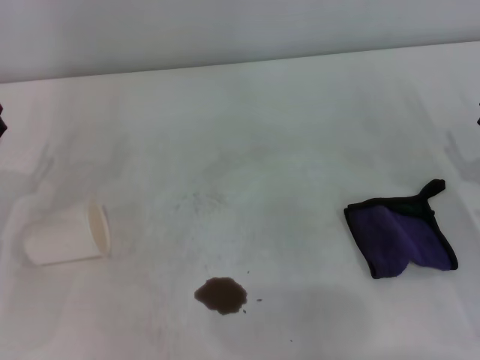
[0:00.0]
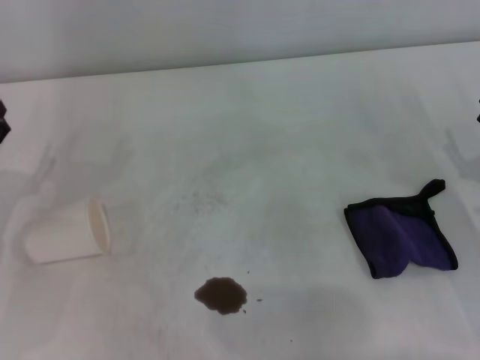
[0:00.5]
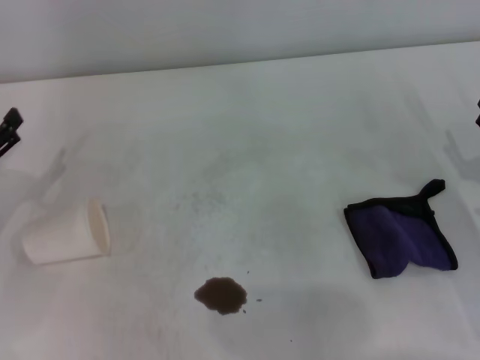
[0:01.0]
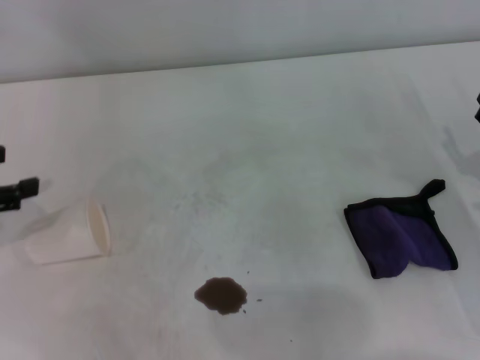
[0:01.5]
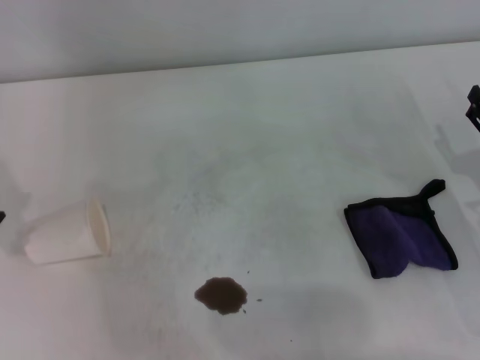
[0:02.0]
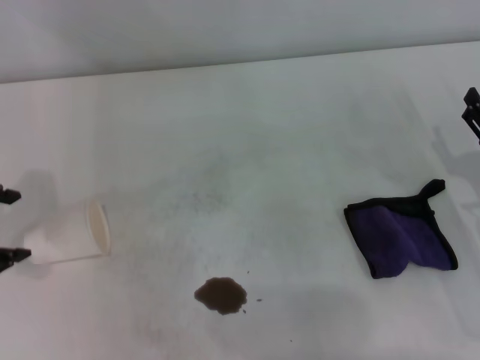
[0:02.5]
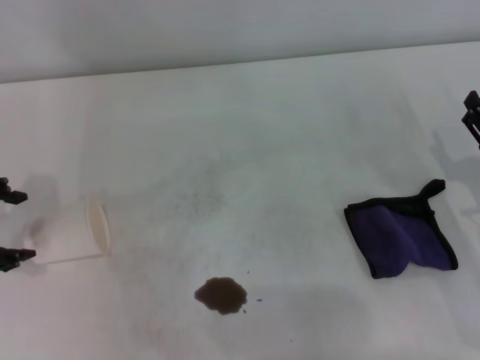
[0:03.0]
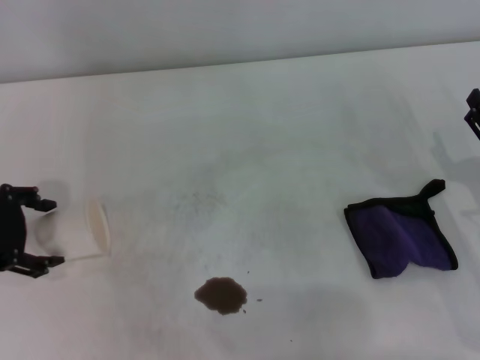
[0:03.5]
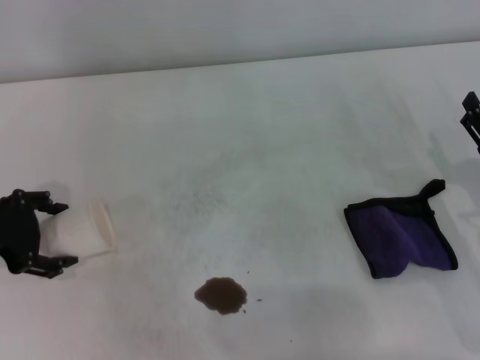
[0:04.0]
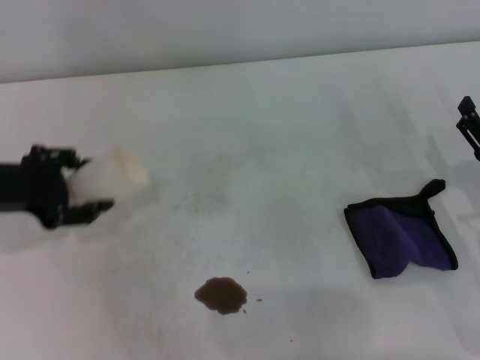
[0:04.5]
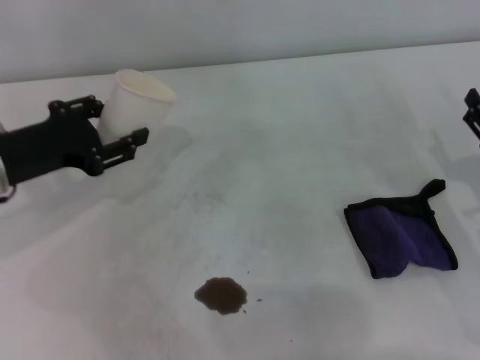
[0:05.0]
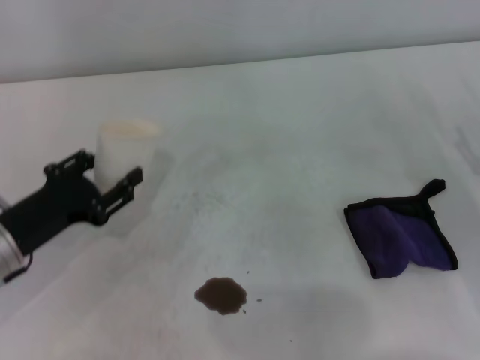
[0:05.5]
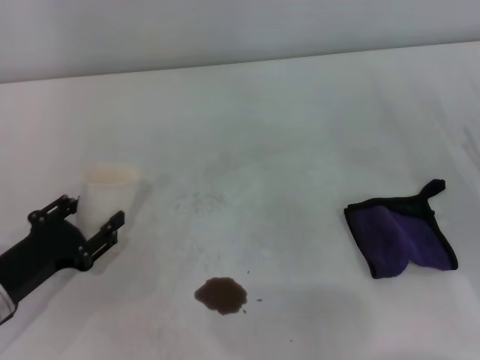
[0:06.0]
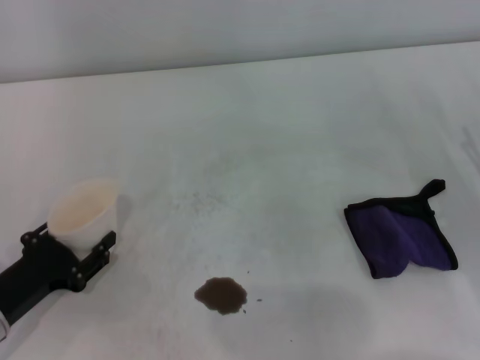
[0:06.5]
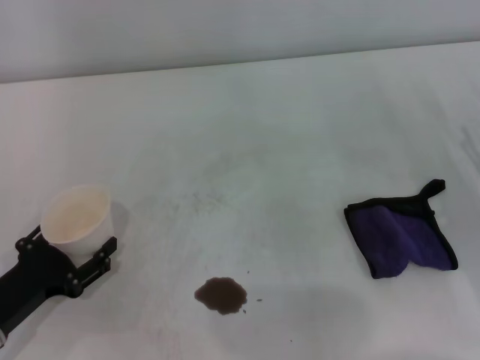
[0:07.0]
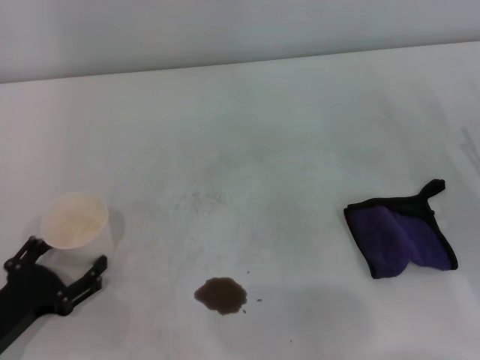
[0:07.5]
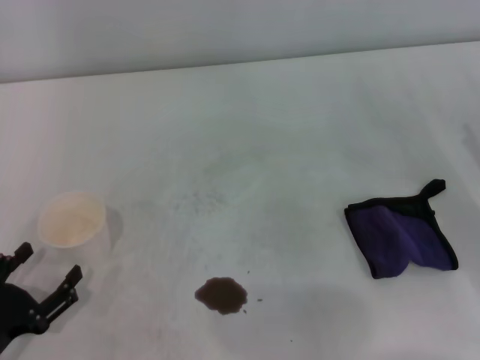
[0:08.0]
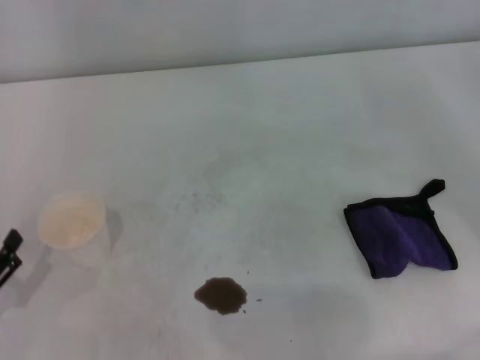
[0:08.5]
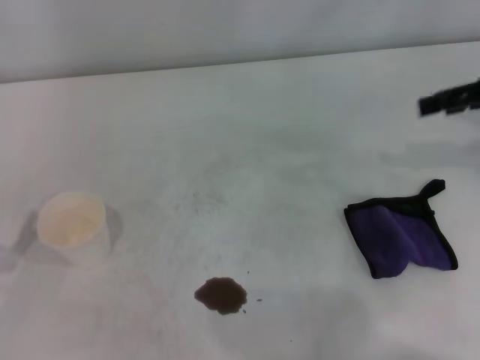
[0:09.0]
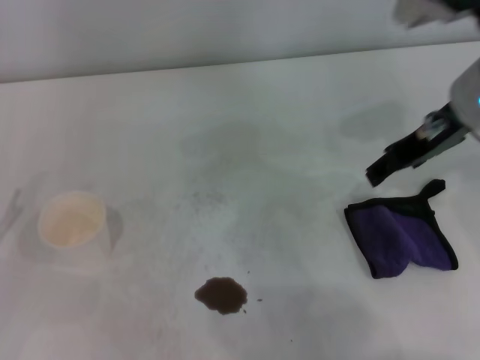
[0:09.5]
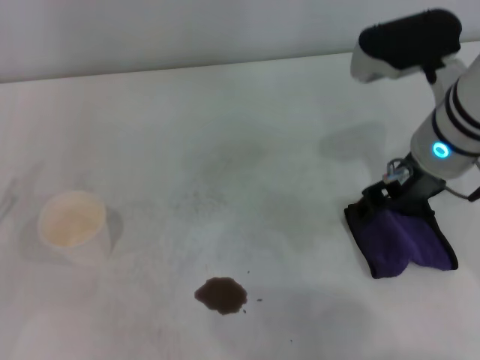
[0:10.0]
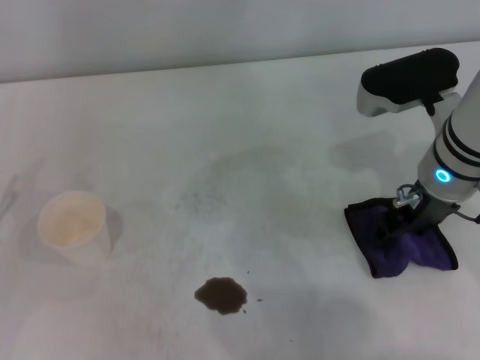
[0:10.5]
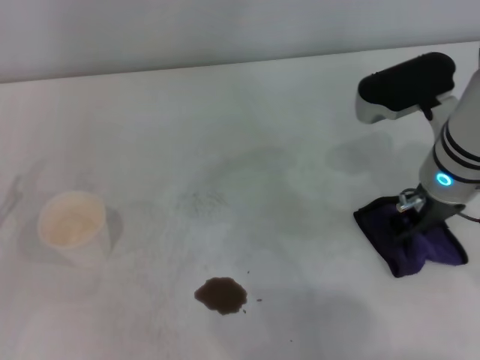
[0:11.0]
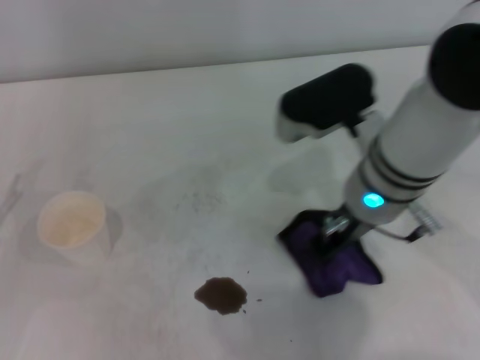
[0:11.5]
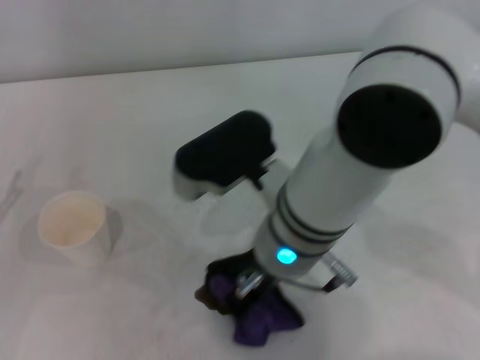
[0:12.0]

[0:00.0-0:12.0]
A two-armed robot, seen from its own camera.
Step, 0.0 to 3.5 s: Grasp the paper cup with the left gripper.
Step, 4.0 to 7.0 s: Stand the paper cup upright with the left gripper.
Step, 7.5 to 10.0 s: Grasp the rag with the right gripper.
2.0 to 4.0 s: The left gripper goes some 10 cm downward and to the right.
4.0 to 6.0 s: The left gripper travels downward and backward by approximately 15 cm, and closes its fingers.
6.0 to 8.0 s: The left gripper moves backward, roughly 10 cm, and opens its fingers.
8.0 to 10.0 s: The right gripper is displaced to the left, upward and forward by roughly 25 cm, while the left gripper travels forward, to the left and upward by roughly 10 cm.
10.0 to 12.0 s: The right gripper shifts roughly 15 cm to the left, and closes up.

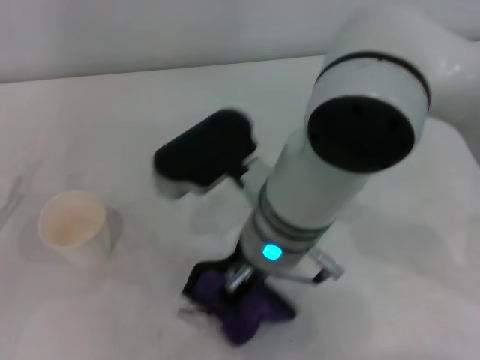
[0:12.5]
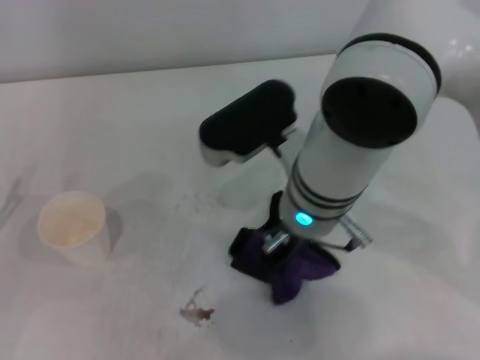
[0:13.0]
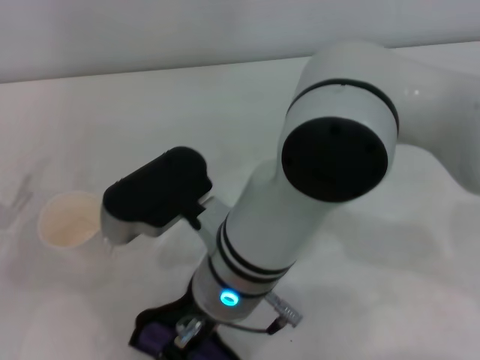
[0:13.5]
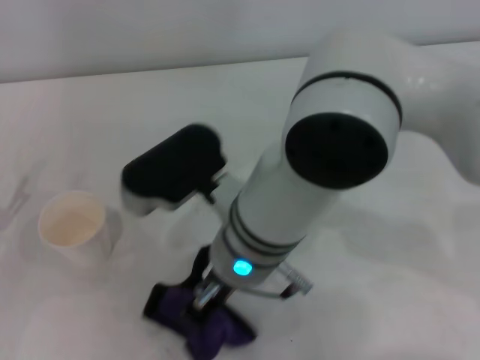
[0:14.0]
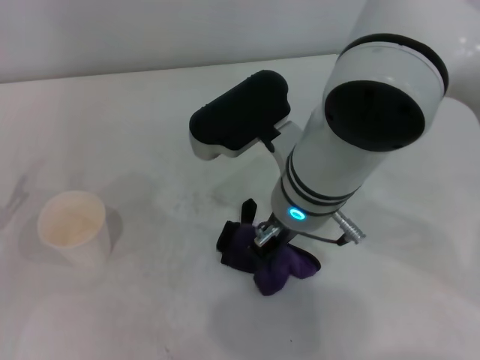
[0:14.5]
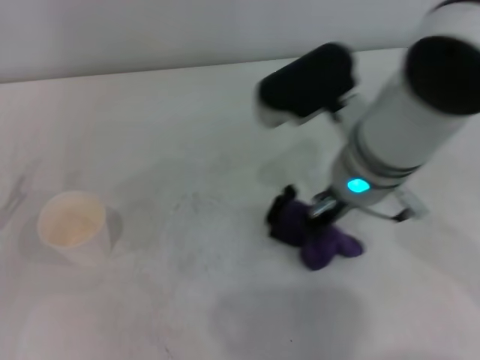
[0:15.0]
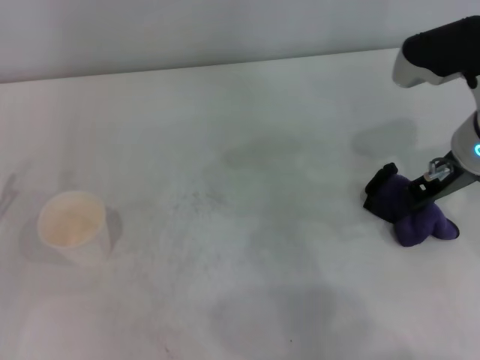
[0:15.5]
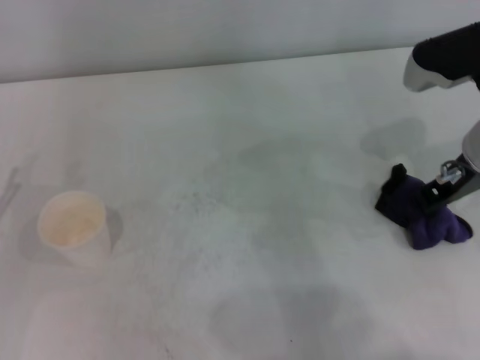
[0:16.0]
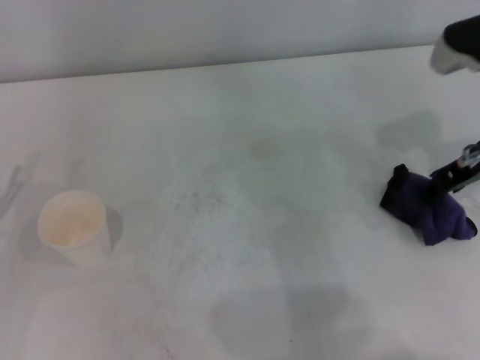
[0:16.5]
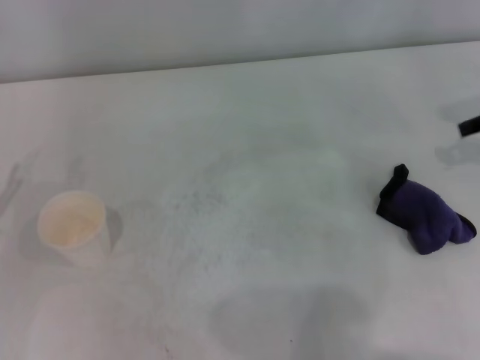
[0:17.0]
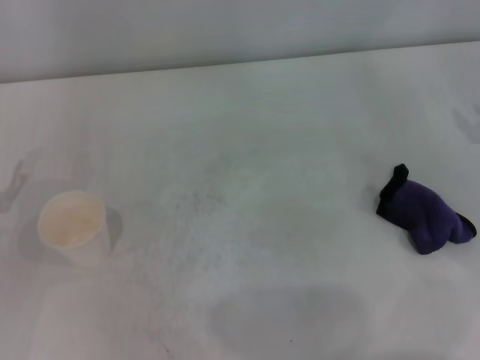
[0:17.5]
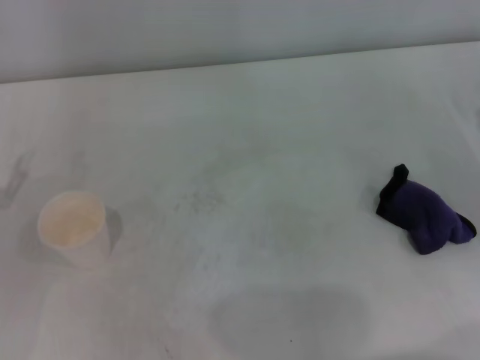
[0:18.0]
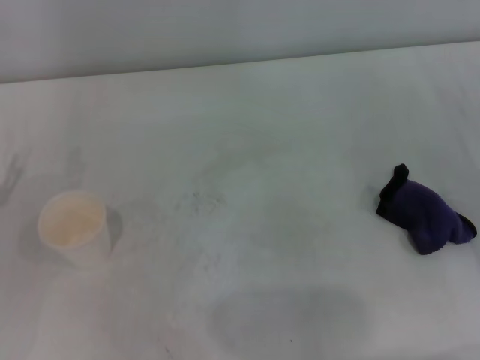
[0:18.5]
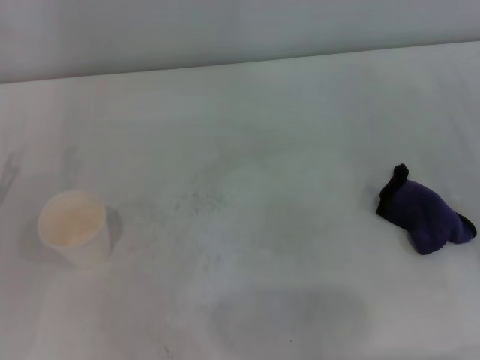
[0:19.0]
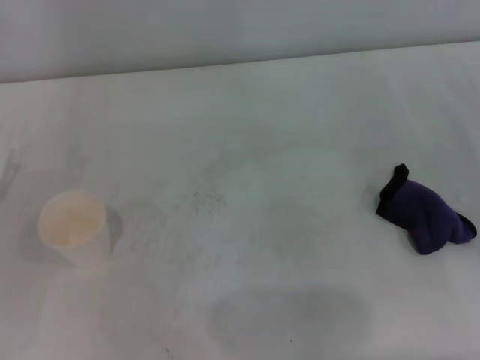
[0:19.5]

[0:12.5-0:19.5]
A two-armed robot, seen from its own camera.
Step, 12.5 to 15.5 s: Wipe the stains off the table with the right gripper.
14.5 to 16.0 s: The right gripper is displaced to the right by roughly 20 cm.
16.0 to 17.5 s: The right gripper goes some 15 cm to the right, and opens up.

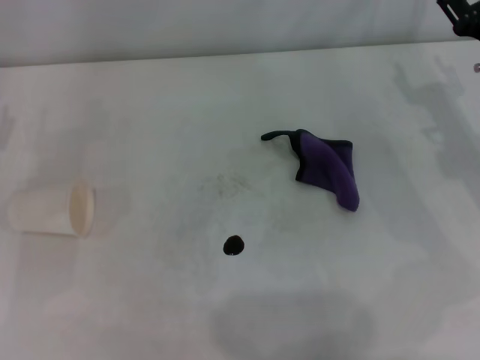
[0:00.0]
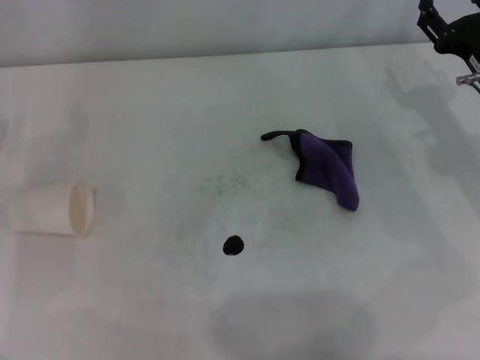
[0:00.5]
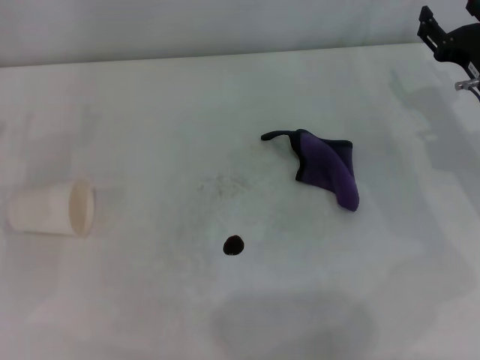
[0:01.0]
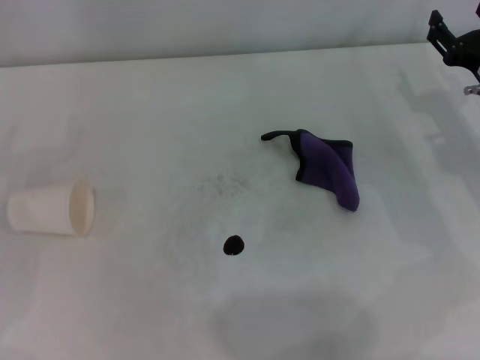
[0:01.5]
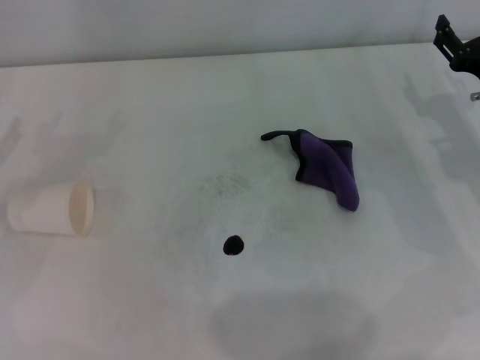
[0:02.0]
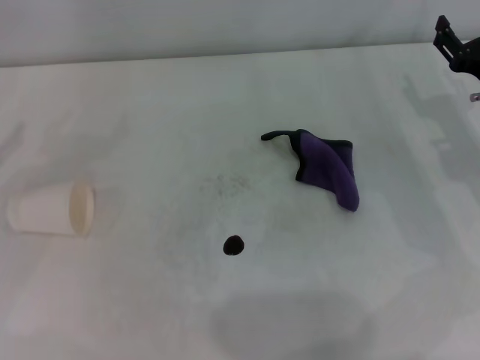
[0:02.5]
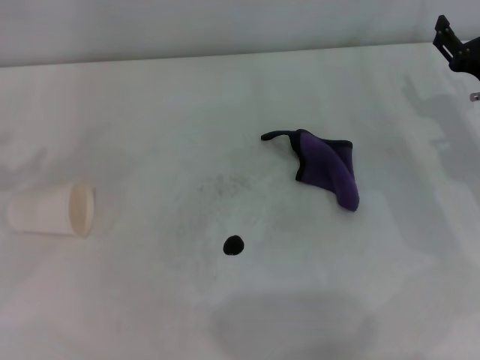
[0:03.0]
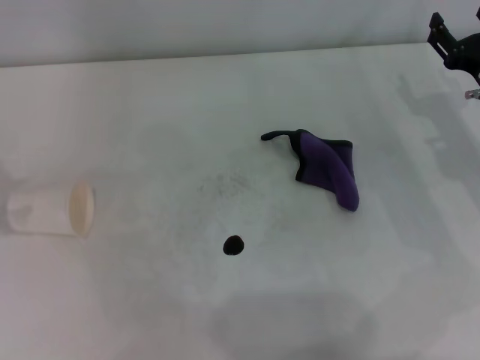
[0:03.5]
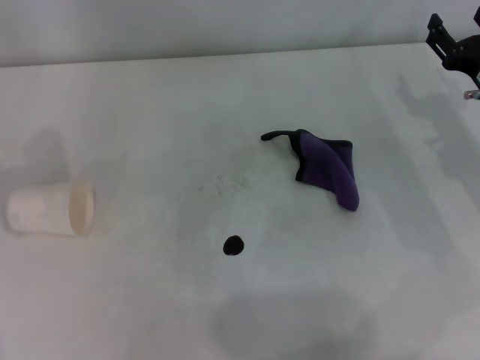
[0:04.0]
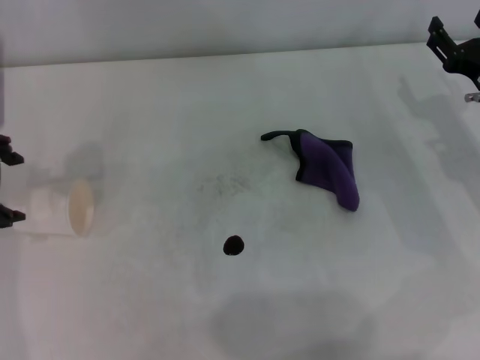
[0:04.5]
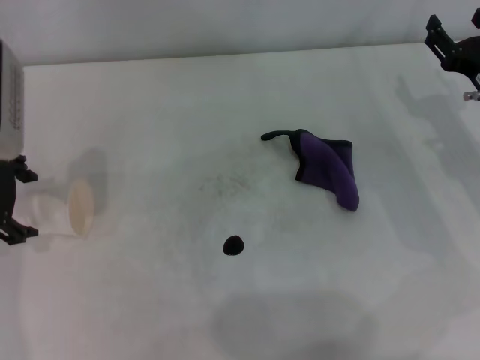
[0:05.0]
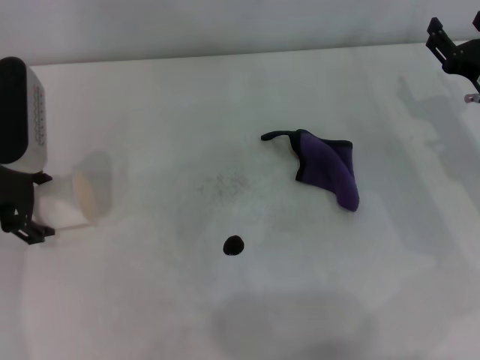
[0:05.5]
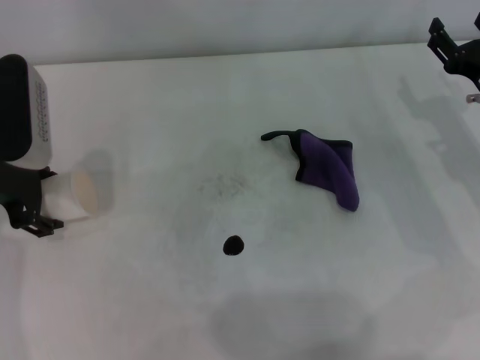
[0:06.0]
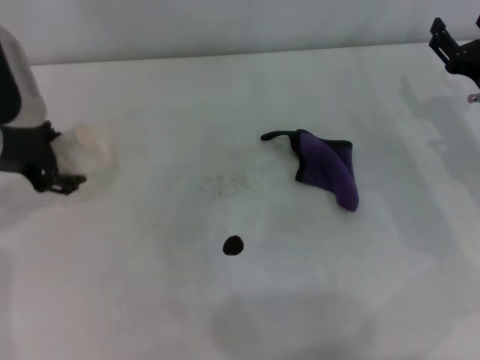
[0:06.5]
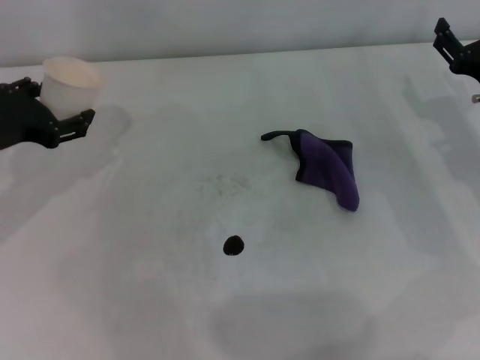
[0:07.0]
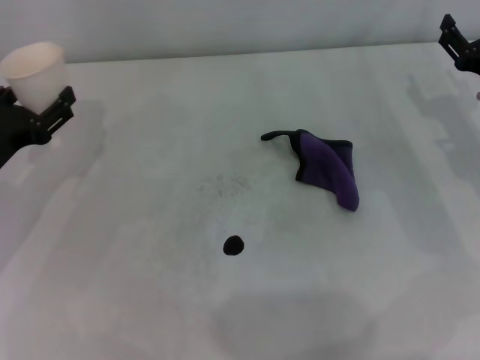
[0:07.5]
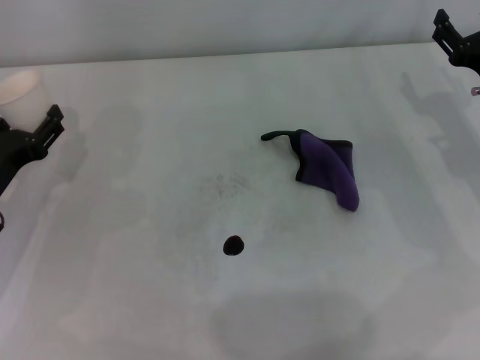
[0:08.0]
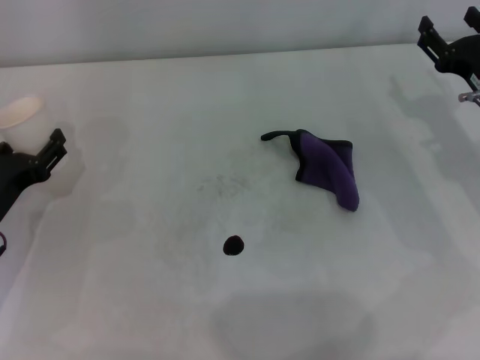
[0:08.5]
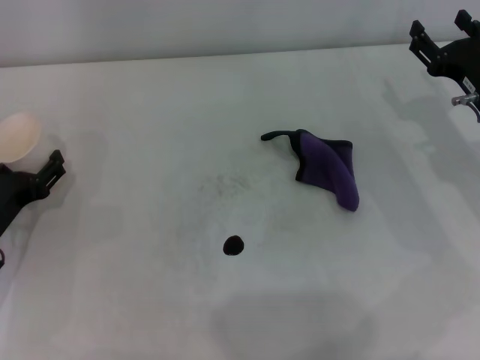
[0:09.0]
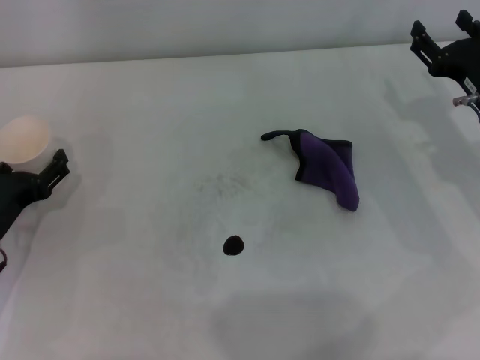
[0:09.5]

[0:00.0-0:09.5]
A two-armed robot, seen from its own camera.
Step, 0.0 to 6.0 s: Grasp the paper cup with the left gripper.
4.0 to 5.5 s: The left gripper travels downward and to the right by roughly 10 cm.
5.5 to 7.5 s: The left gripper shifts approximately 10 cm downward.
7.5 to 9.5 s: The left gripper is displaced downward by some 5 cm.
